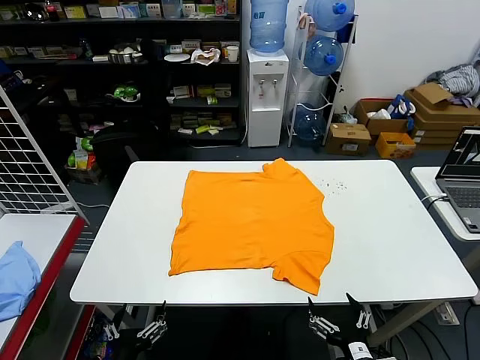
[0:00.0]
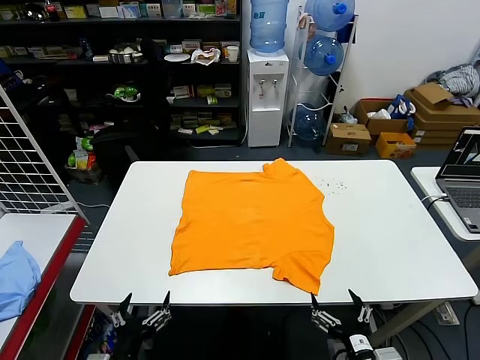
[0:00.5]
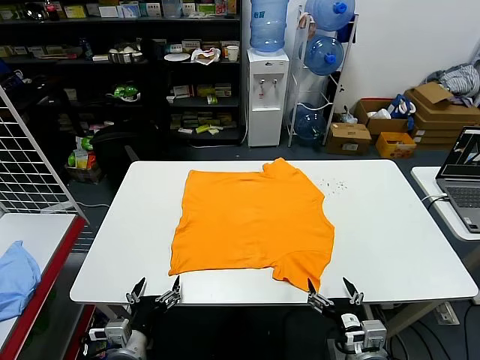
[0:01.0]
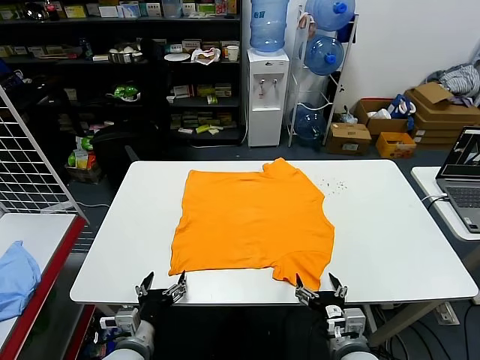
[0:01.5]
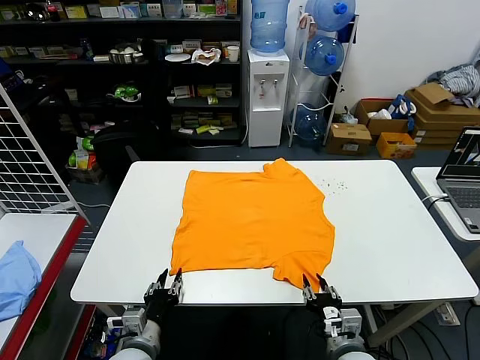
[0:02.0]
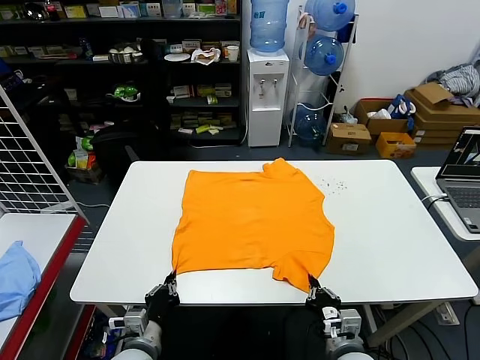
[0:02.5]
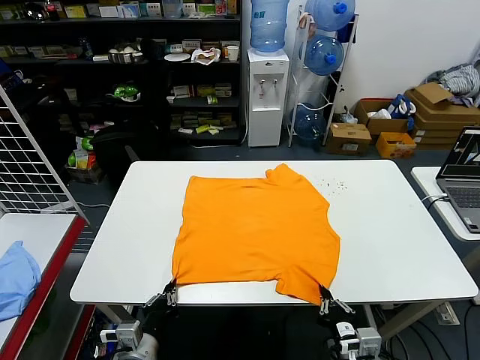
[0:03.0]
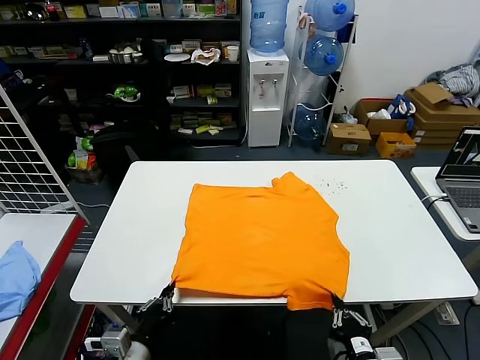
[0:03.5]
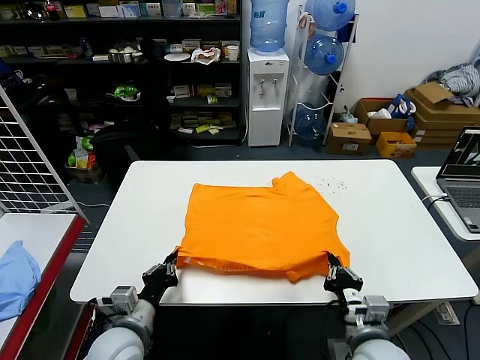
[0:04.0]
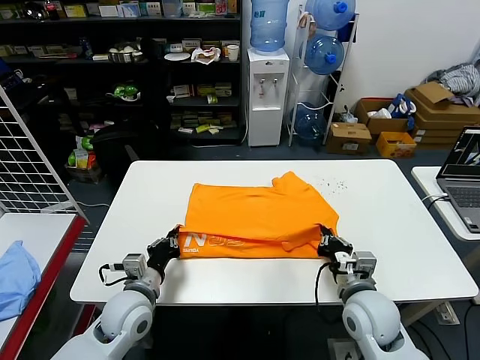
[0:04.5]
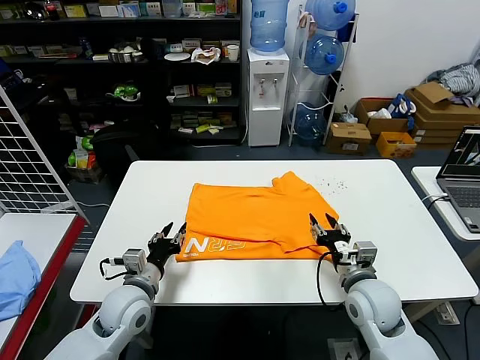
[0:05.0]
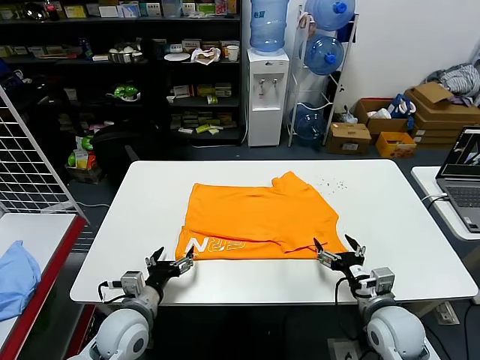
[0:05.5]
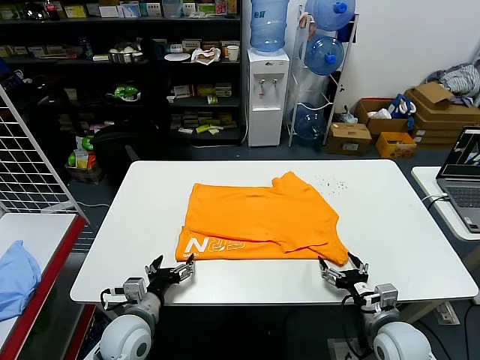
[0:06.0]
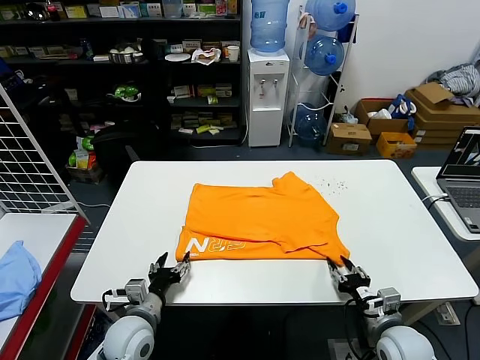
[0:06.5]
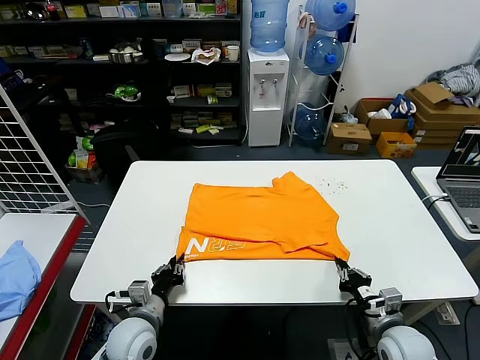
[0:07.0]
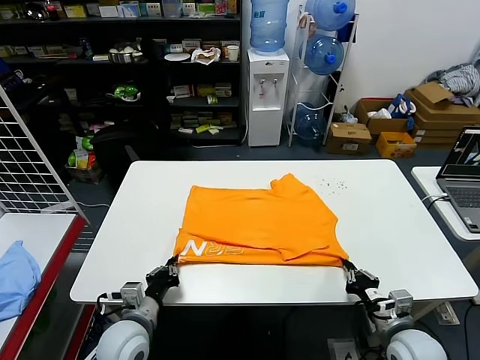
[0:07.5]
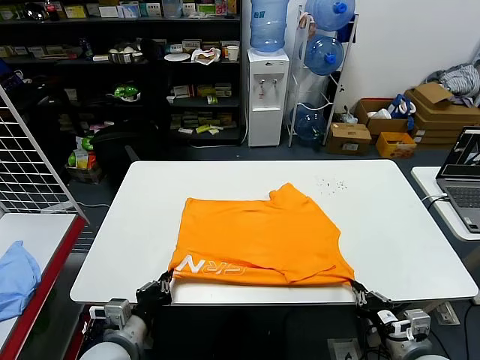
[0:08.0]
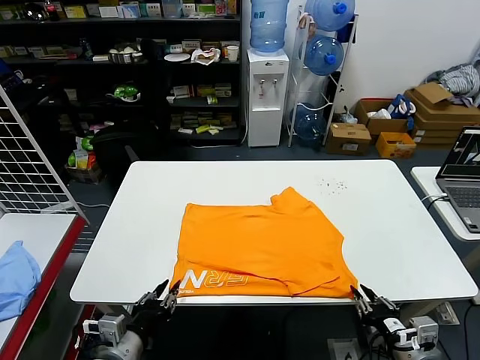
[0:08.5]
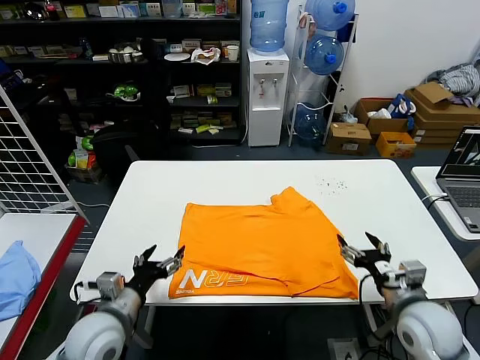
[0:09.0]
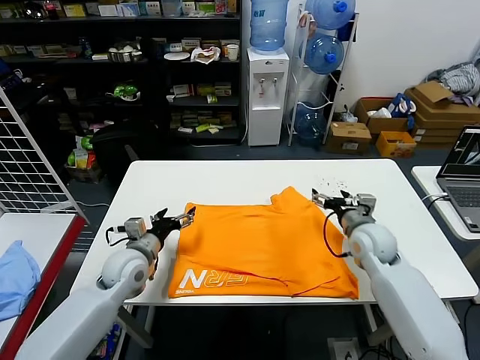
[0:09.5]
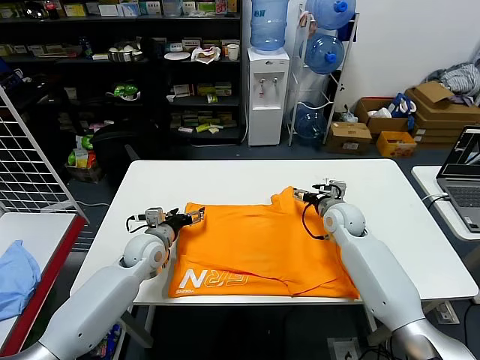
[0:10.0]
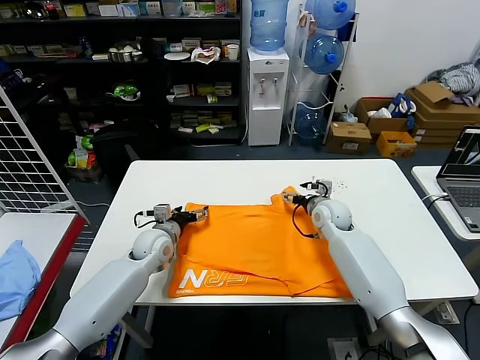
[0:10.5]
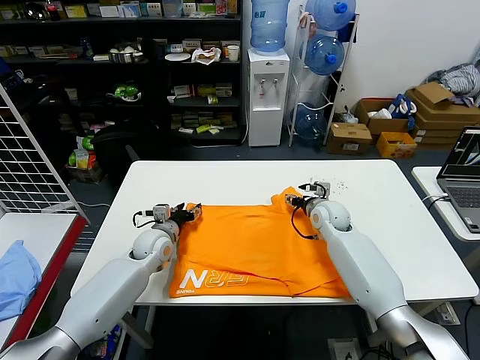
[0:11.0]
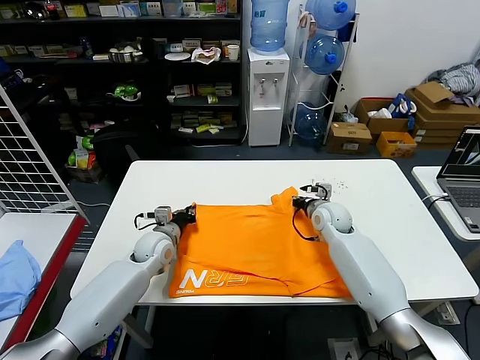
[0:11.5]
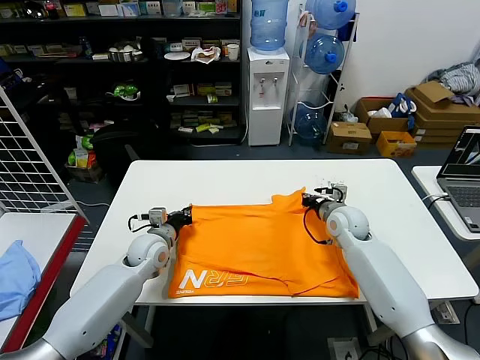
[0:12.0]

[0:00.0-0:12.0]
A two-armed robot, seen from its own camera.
Task of the whole recording: fold and organize the clothes.
Step, 0:00.0 to 0:02.0: use both grippers simultaneously to clamp the lower edge of the clothing fabric.
Step, 0:02.5 to 0:04.5: use both grippers to drag the lower edge of the fabric forward and fold it over the upper edge.
Step, 0:05.0 to 0:08.0: Drag the clothes downward with both gripper.
Step, 0:08.5 to 0:11.0: use both grippers simultaneously to clamp the upper edge of the clothing fabric.
0:02.0 to 0:04.0: The grippers both shift upward by roughly 5 cm. The left gripper moves roughly 5 cm backward and comes back, and closes up; the right gripper travels backward and back again, some 5 cm each way.
0:04.0 to 0:06.0: The right gripper heads to the right and downward, covering approximately 10 cm, and opens up; the left gripper changes place by about 5 cm, and opens up.
0:06.0 to 0:08.0: The left gripper shifts approximately 5 cm backward, and closes its fingers, while the right gripper goes about 10 cm backward and upward, and closes up.
0:08.0 to 0:10.0: The two grippers go roughly 30 cm forward. The right gripper opens. Meanwhile the left gripper opens its fingers.
0:10.0 to 0:12.0: The right gripper closes its fingers; the left gripper closes.

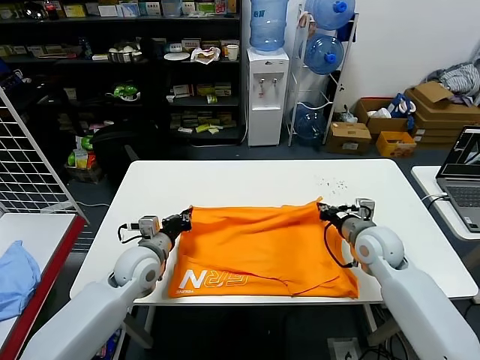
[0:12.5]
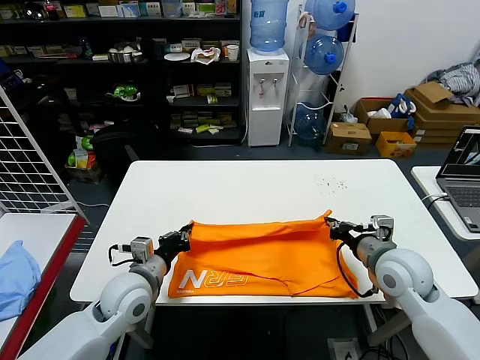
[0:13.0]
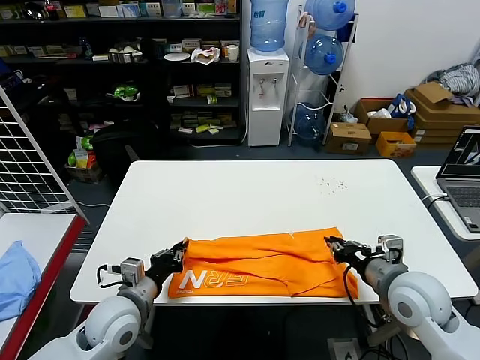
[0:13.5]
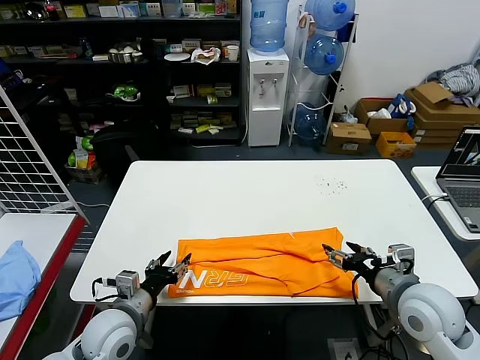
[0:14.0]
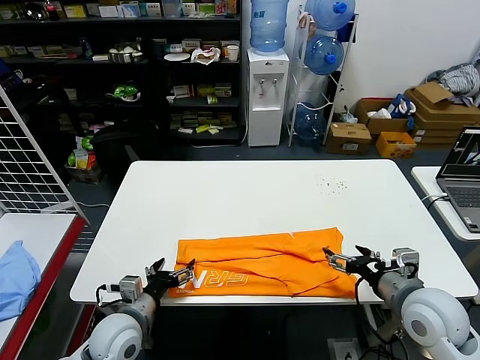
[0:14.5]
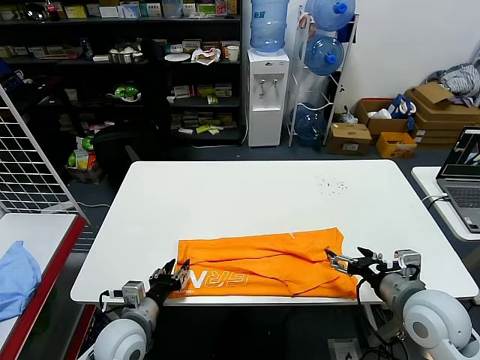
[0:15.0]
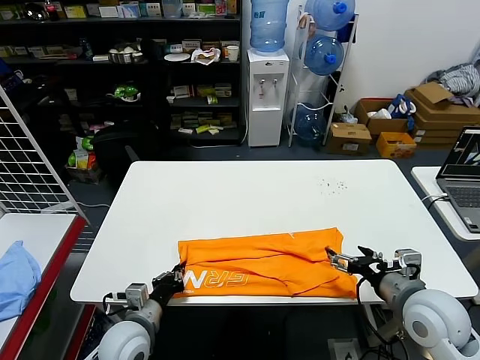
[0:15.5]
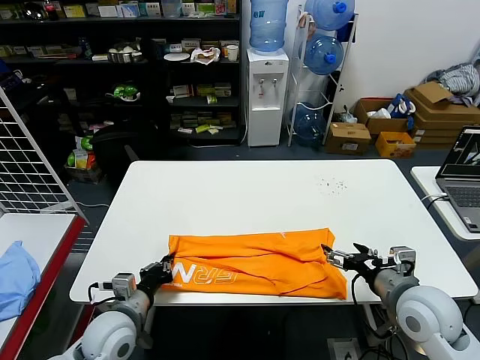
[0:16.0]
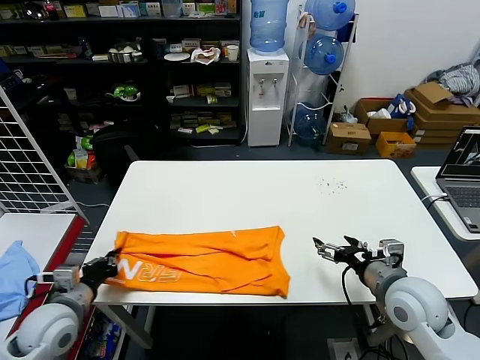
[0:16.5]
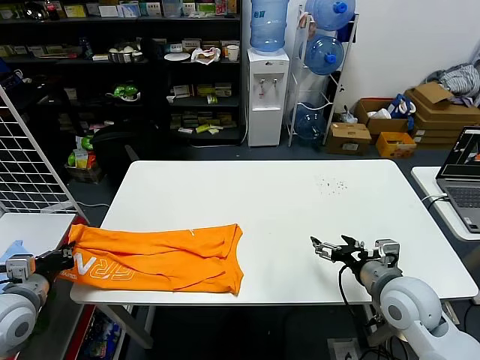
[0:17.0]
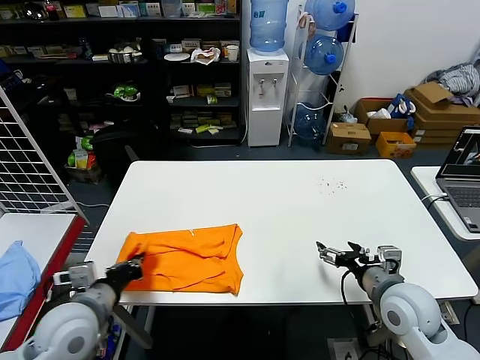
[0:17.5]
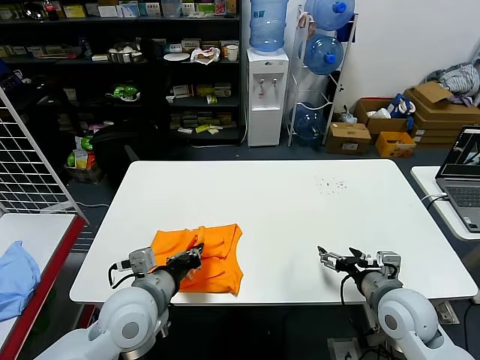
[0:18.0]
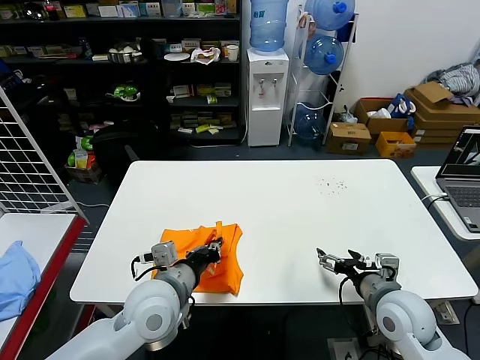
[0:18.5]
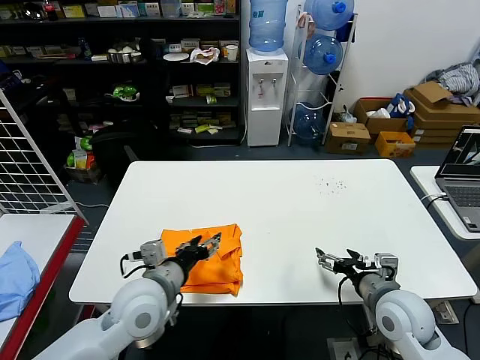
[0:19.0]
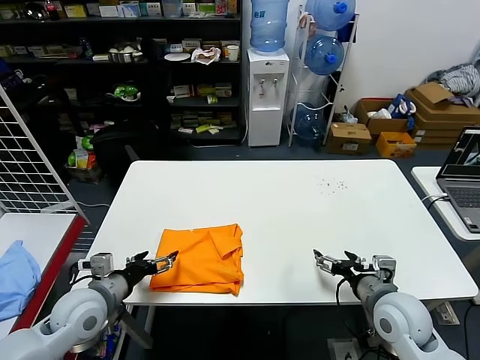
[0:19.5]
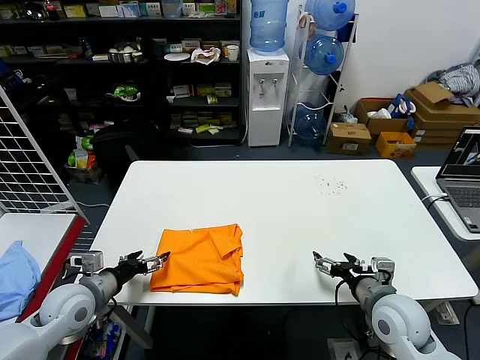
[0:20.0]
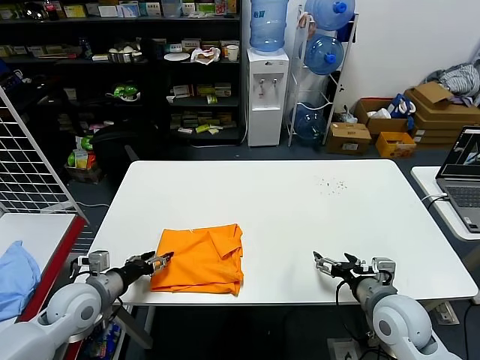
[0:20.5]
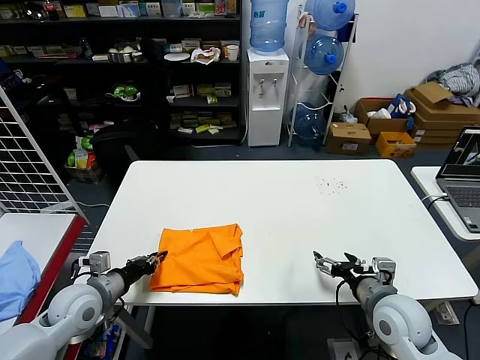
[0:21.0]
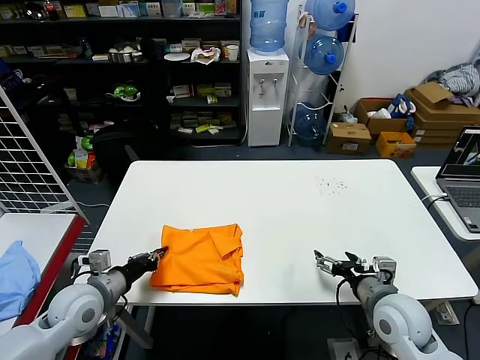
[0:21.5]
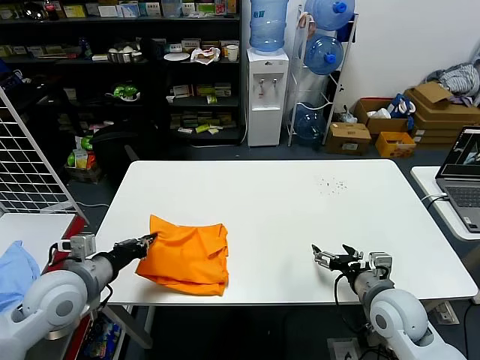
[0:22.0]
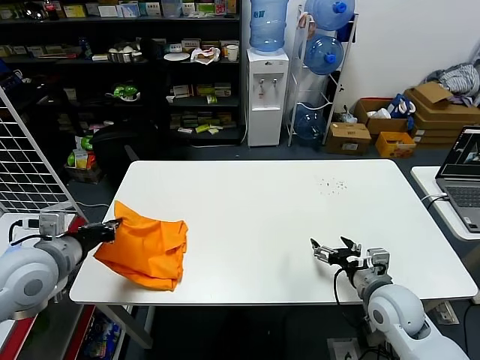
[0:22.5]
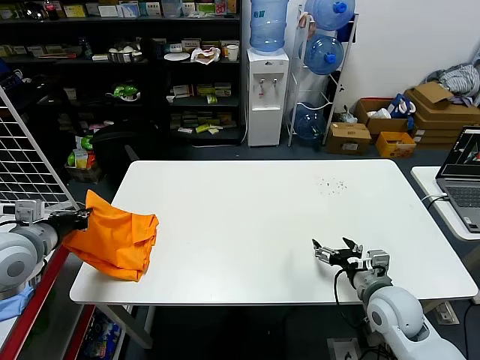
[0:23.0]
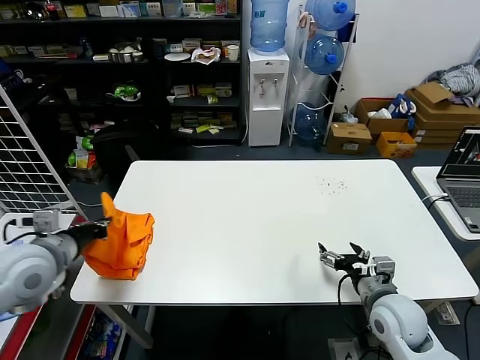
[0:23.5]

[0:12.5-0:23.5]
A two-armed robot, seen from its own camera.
Task of the whole recording: fold and organize the clothes.
Step, 0:12.5 to 0:13.5: use both grippers to drag the upper edge of the fabric backward and fold it over the lower edge.
Step, 0:14.0 to 0:15.0: use the left gripper to clamp the left edge of the fabric.
Step, 0:15.5 to 0:18.5: use the left gripper to drag the left edge of the fabric to the left and folds it over the right edge.
0:12.5 to 0:14.5: Both grippers travel together backward, some 15 cm. The left gripper opens its fingers. Meanwhile the right gripper opens.
0:14.5 to 0:16.0: The left gripper closes its fingers.
0:16.0 to 0:18.0: The left gripper travels upward by about 10 cm, and goes to the left and returns, approximately 20 cm each way.
0:18.0 to 0:20.0: The left gripper shifts about 15 cm to the left and downward, and opens.
0:20.0 to 0:21.5: The left gripper closes.
0:21.5 to 0:23.5: The left gripper heads upward, covering approximately 15 cm.

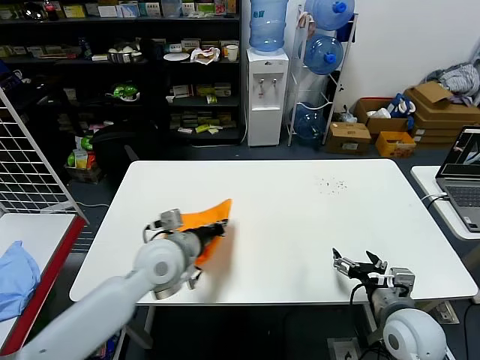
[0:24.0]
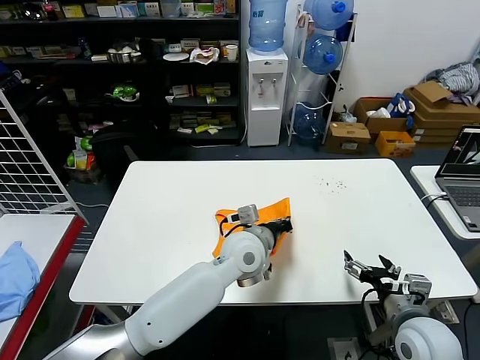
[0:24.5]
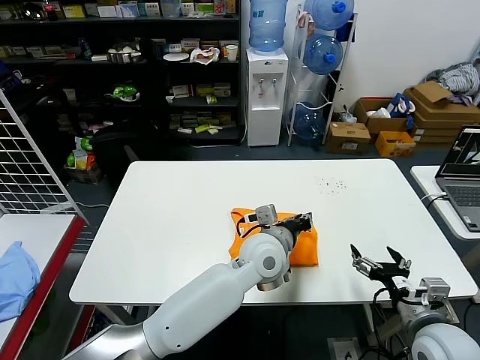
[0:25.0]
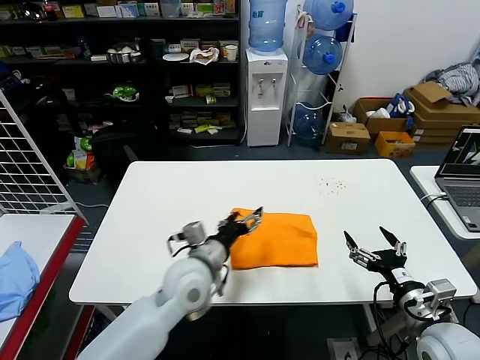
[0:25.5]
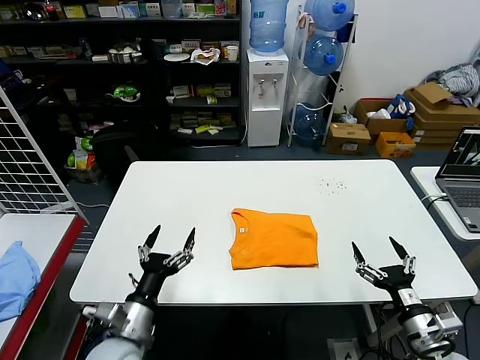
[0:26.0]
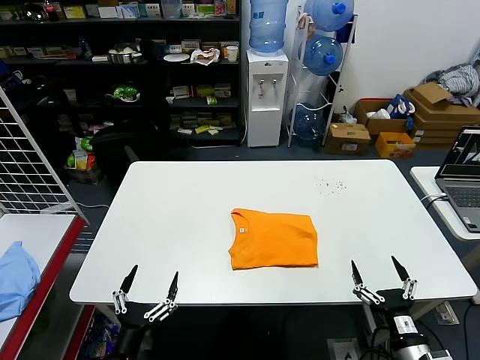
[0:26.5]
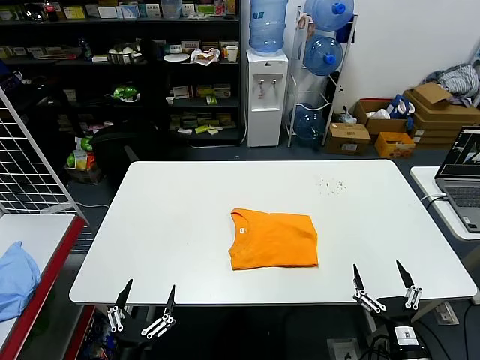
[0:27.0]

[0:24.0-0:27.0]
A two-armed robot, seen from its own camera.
Task of the whole recording: fold and organize the clothes.
0:24.0 to 0:25.5: The left gripper heads to the right, covering about 10 cm, and opens. The right gripper shifts by roughly 5 cm.
0:25.5 to 0:27.0: The right gripper travels backward and downward by some 15 cm. The left gripper is displaced backward, to the left and downward by about 35 cm.
